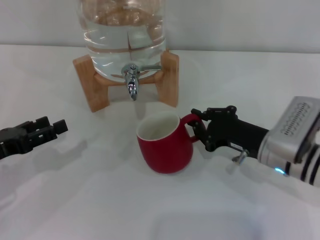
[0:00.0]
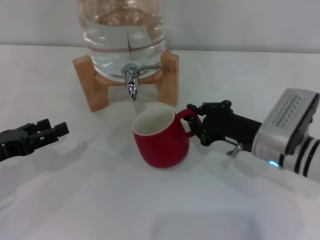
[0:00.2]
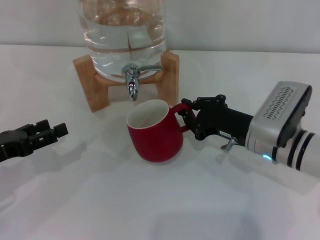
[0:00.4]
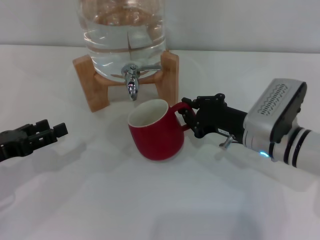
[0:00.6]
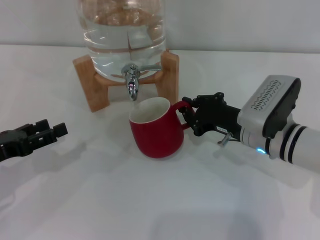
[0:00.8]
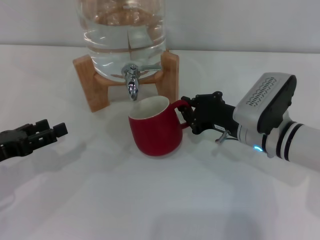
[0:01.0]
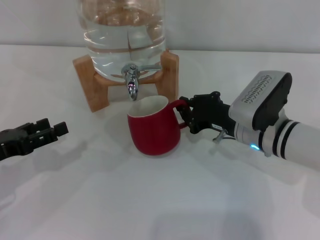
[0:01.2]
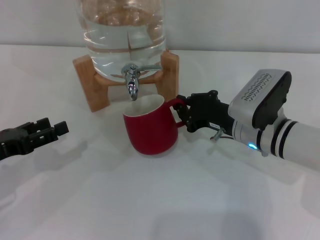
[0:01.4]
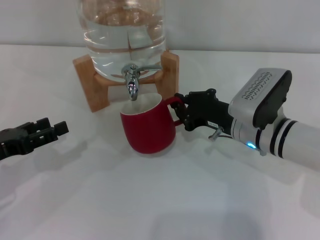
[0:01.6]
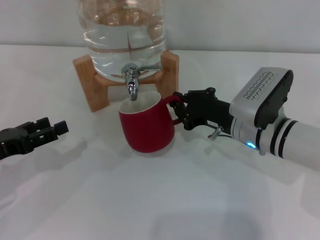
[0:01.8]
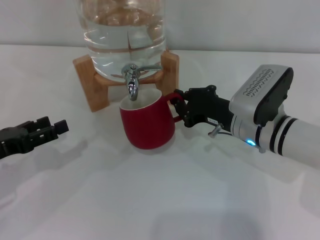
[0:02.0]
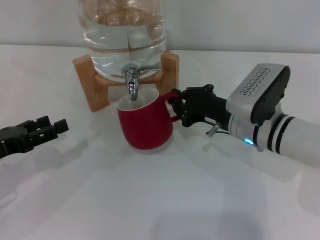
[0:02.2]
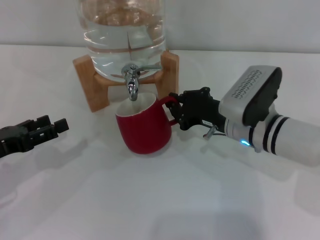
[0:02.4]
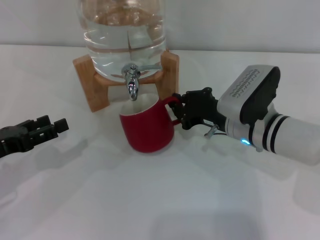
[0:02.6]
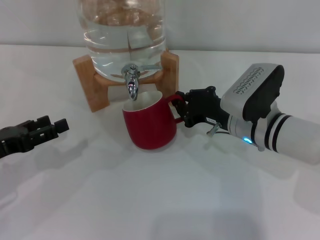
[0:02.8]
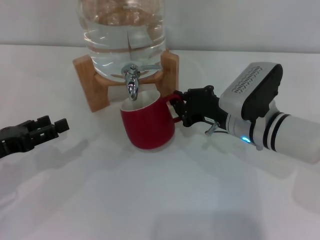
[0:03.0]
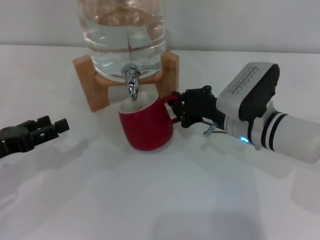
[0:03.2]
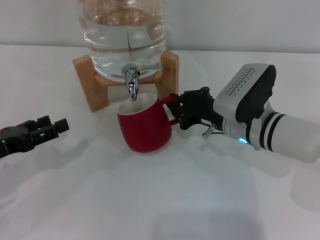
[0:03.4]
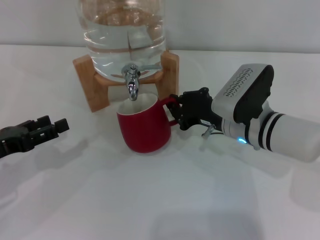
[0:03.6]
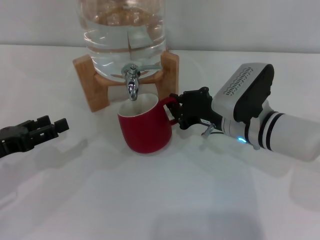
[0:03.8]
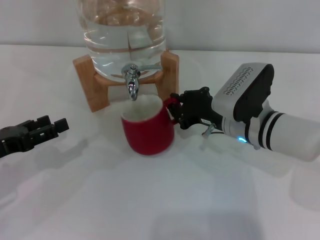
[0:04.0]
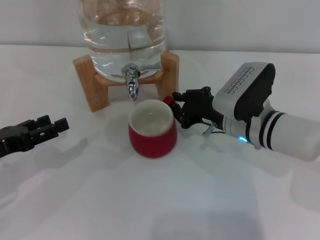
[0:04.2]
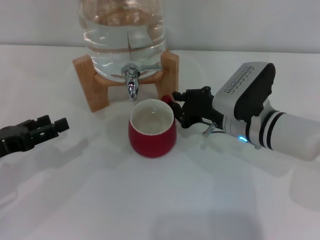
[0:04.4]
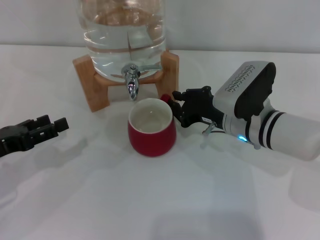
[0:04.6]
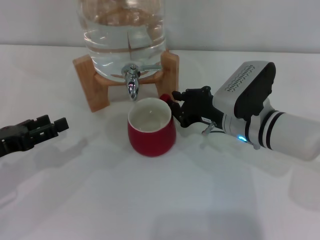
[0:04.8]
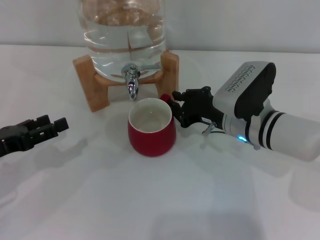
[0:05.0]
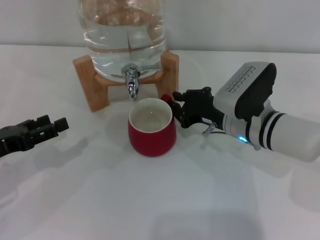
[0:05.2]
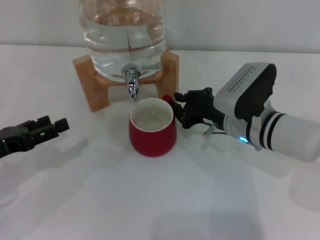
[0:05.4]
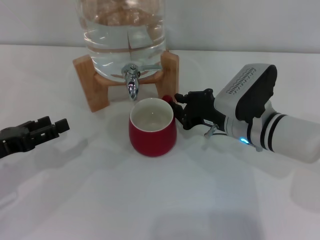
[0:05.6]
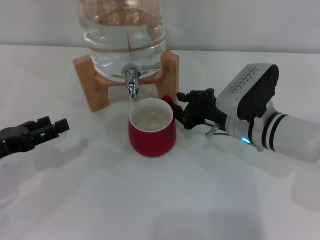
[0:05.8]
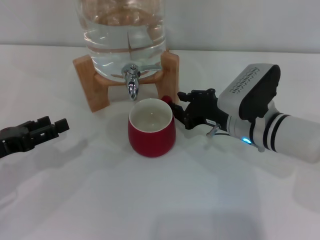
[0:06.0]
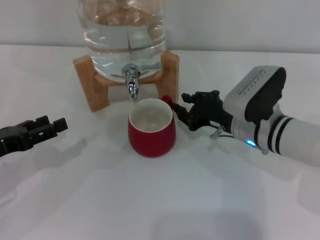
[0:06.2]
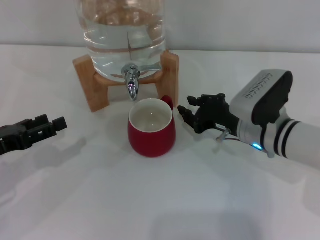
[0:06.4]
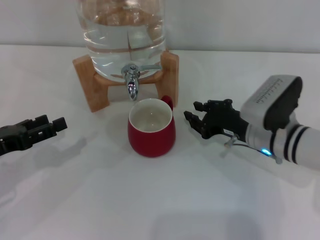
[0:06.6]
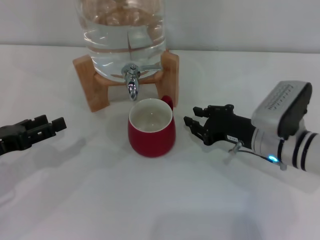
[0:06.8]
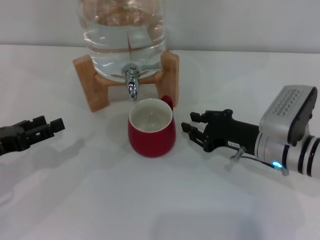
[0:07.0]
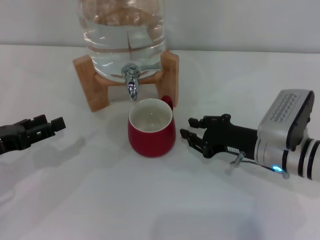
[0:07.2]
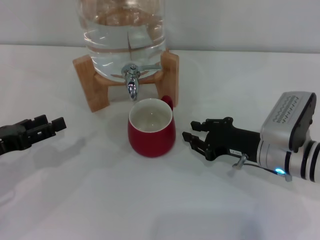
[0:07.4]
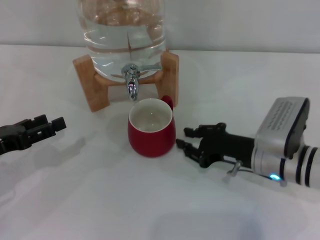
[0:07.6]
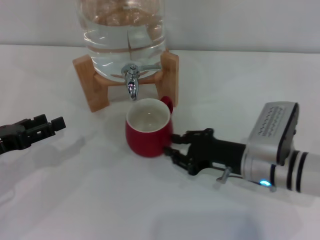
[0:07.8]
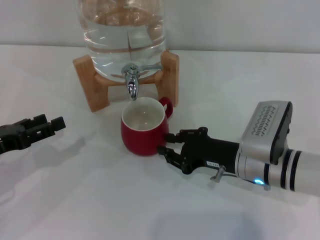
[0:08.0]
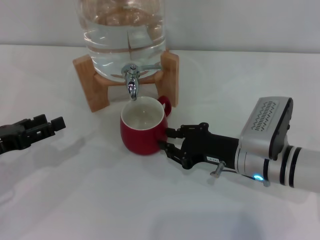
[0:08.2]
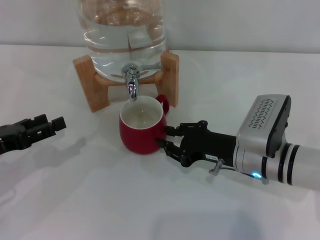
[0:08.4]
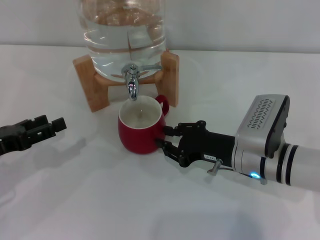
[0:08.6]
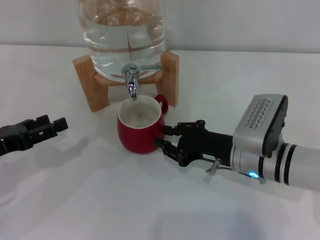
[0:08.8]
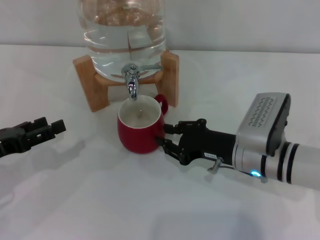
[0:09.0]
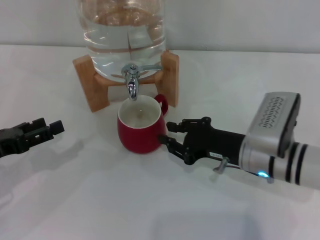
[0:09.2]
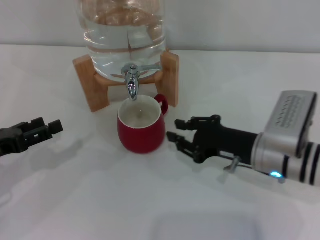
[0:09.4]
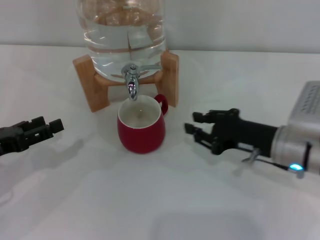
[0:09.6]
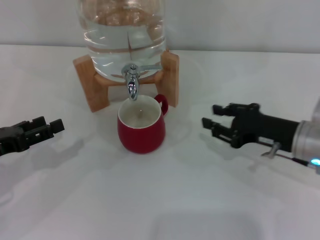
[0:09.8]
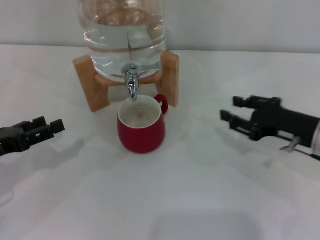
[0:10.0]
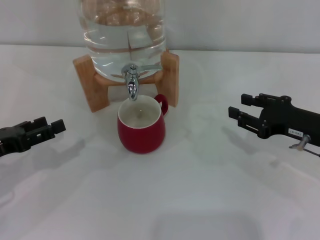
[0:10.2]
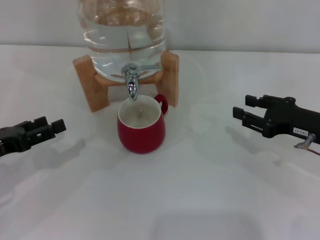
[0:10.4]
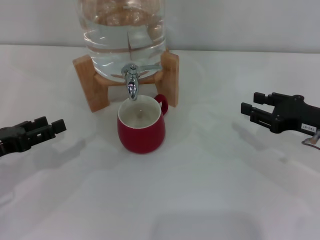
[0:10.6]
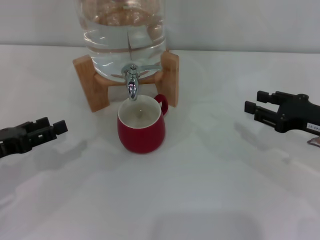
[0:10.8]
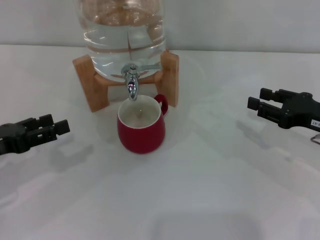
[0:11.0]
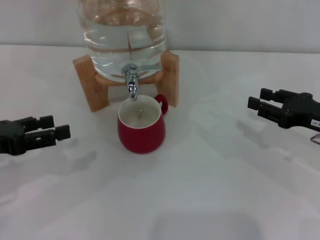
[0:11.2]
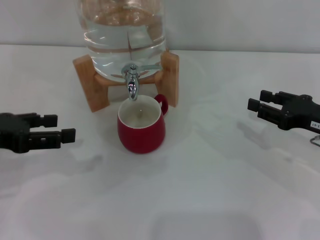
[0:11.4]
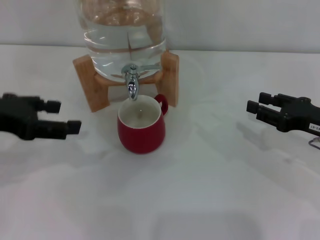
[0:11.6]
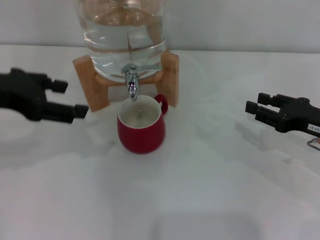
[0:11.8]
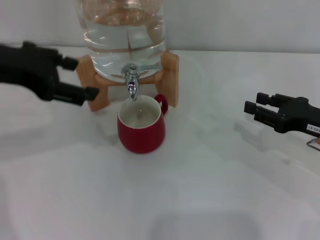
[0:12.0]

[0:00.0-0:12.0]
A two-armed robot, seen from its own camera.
Task of the whole recording: the right gripper pick up the red cup and place it horizontally under the faucet, the left gripper turn on the faucet to fill the cup, and then turn off the faucet.
Step, 0:00.0 to 0:09.6: Move the cup beneath the water dispenser nozzle with the right gripper.
0:00.0 to 0:01.6: The right gripper changes place by roughly 5 cm.
0:01.6 to 0:03.0: Neither gripper changes place.
0:03.0 to 0:06.0: Both grippers stay about where they are.
0:06.0 to 0:07.6: The right gripper moves approximately 5 cm.
0:07.6 to 0:09.0: The grippers stay close to where they were, moving slightly.
0:09.0 to 0:10.4: The right gripper shifts roughly 10 cm to the right.
0:10.4 to 0:12.0: The left gripper goes approximately 20 cm upward and to the right.

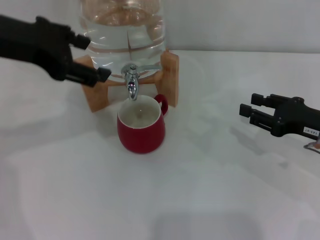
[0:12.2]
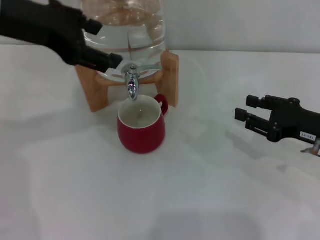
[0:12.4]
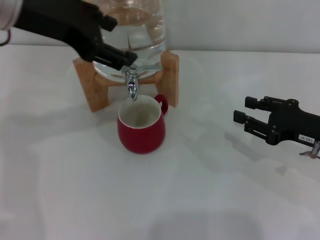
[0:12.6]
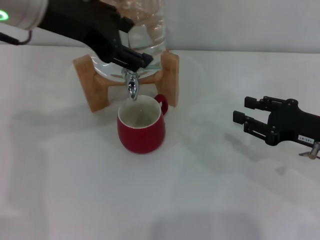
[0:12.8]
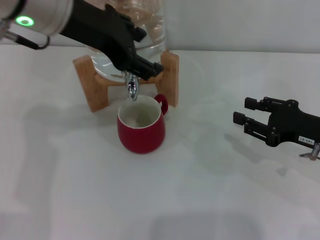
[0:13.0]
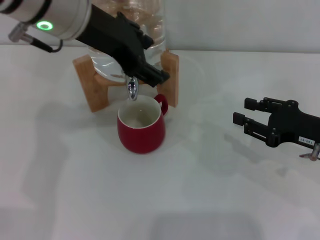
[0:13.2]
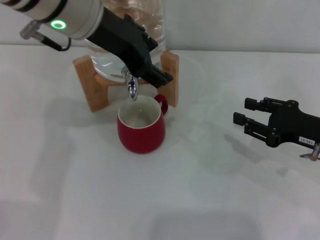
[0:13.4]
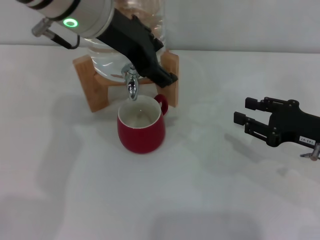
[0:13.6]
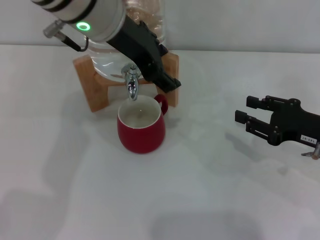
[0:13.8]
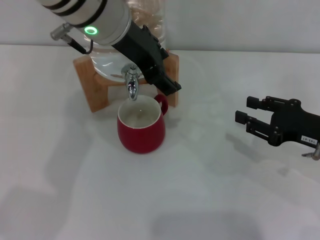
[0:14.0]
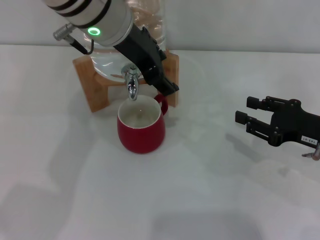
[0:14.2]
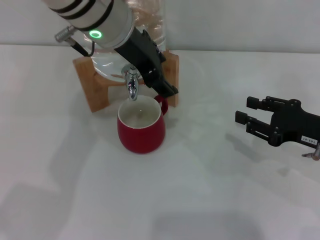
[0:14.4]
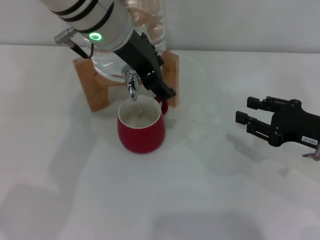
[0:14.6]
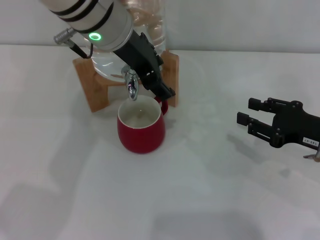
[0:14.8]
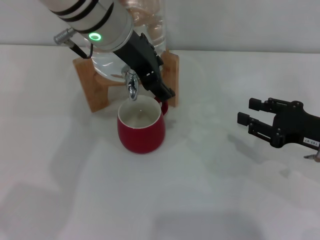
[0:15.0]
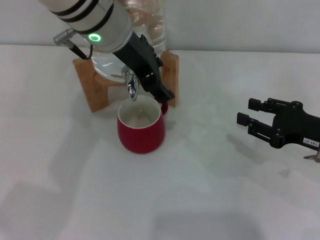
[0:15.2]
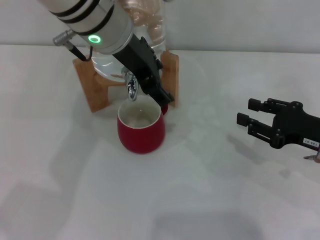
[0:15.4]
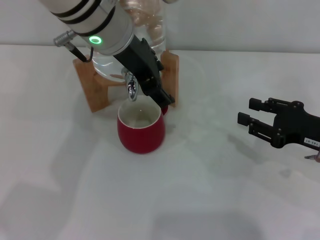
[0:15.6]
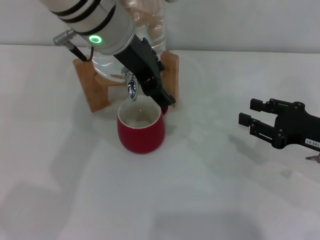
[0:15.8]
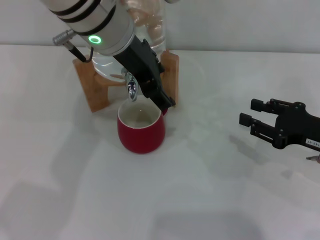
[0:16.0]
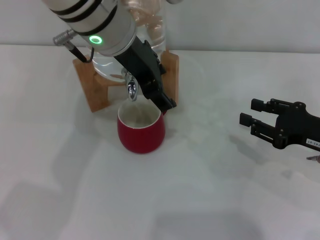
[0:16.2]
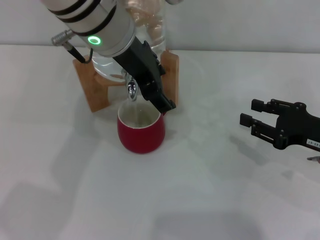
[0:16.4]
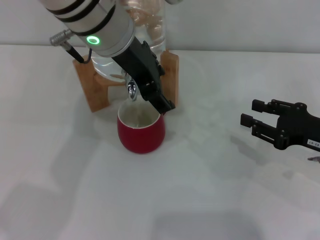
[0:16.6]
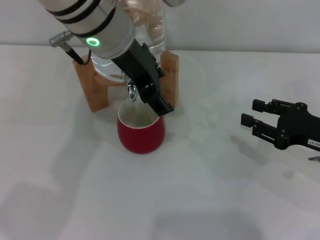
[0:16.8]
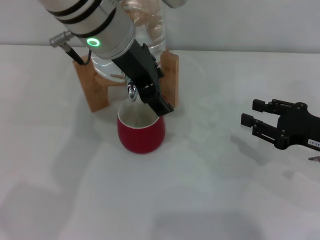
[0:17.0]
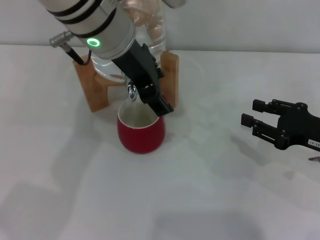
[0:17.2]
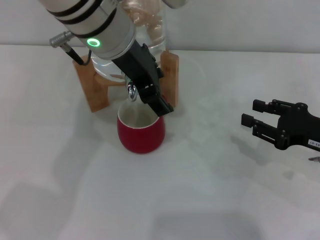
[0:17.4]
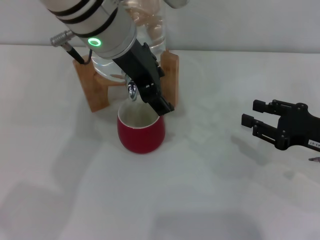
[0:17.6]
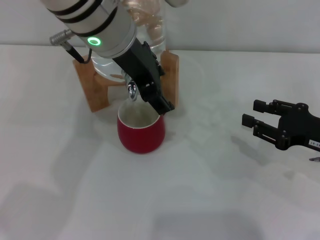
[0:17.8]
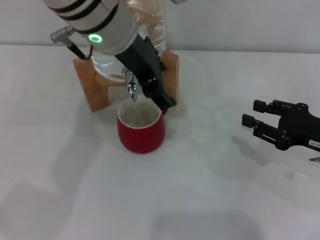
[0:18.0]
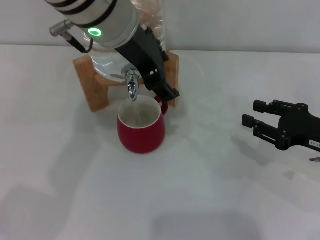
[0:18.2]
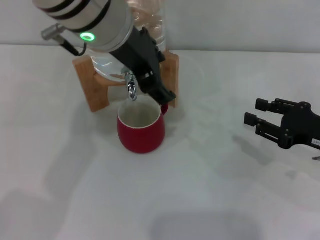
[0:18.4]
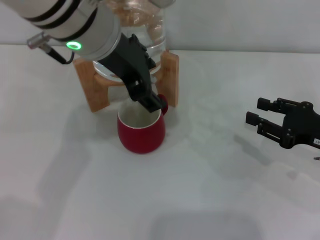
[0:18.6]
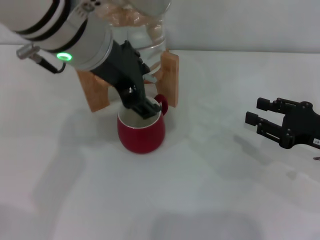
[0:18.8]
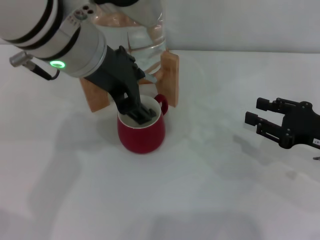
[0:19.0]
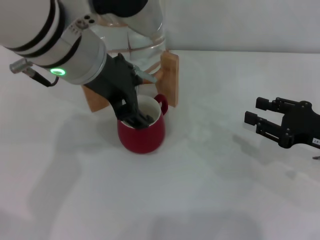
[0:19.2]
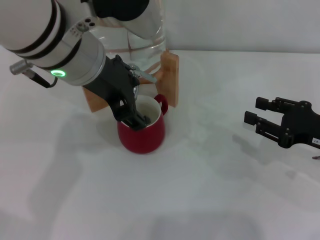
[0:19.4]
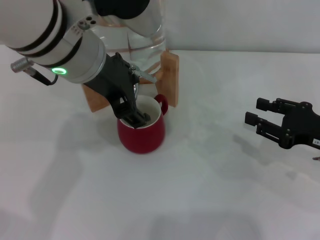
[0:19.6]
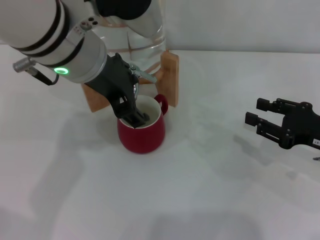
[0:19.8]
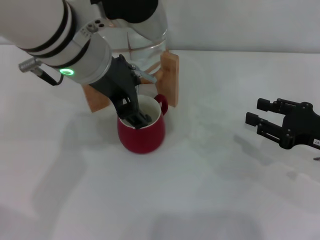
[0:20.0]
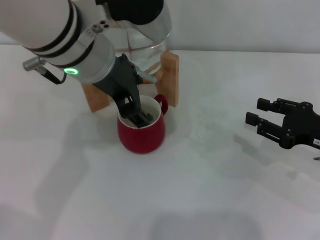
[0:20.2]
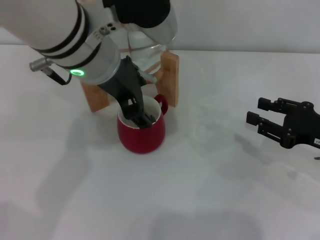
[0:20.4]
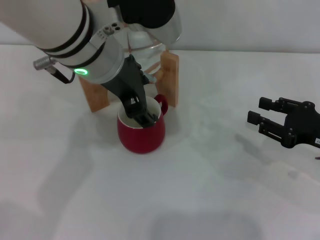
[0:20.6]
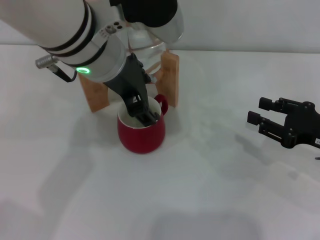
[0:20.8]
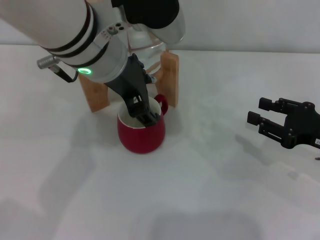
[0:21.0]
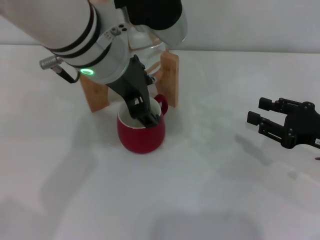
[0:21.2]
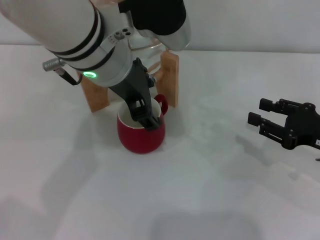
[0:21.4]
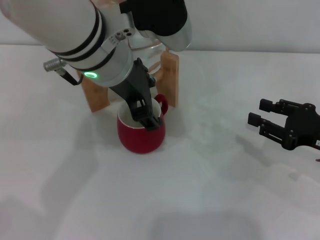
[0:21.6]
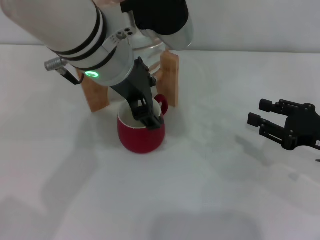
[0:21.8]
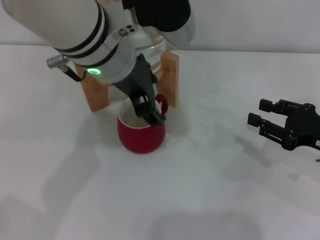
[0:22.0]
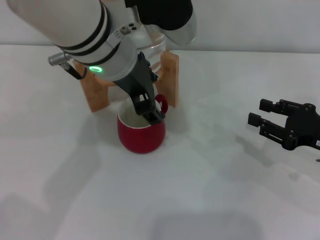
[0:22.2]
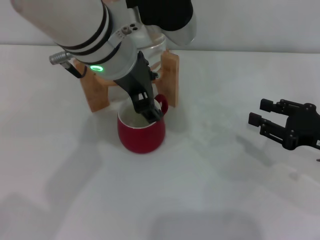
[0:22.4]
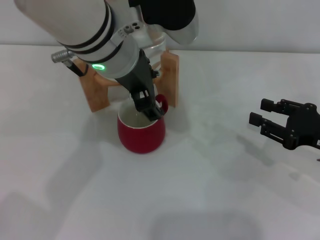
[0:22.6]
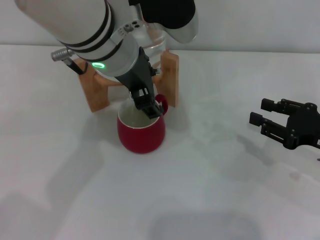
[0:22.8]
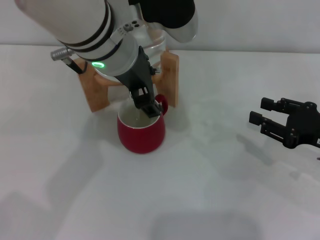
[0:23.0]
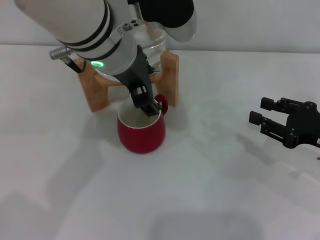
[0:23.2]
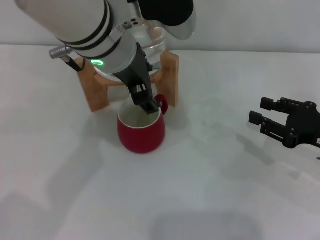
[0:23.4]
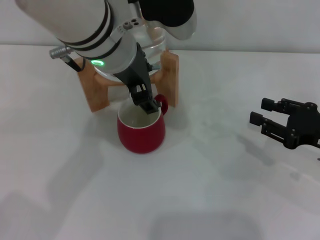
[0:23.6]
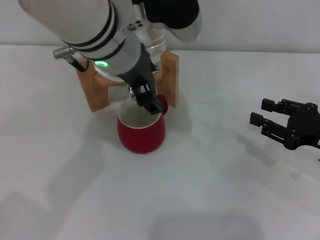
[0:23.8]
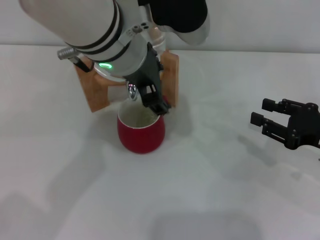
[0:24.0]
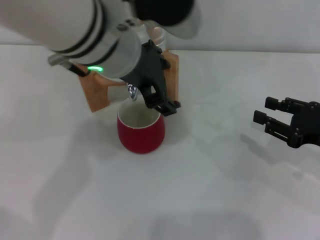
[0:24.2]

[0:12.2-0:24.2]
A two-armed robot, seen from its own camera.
Task of the whole recording: the right gripper pick up the red cup and place it horizontally under the faucet, the left gripper turn on the faucet to fill the cup, and then turn off the faucet.
Step, 0:12.2 to 0:18.8: Open the dispenser valve and fill the cup with water with the left gripper.
0:12.2 to 0:13.8: The left gripper heads to the right and forward, covering about 15 cm.
0:13.8 to 0:21.2: The grippers move only a little.
0:21.2 to 0:22.6: Both grippers stay about where they are.
0:22.6 to 0:24.2: There are only small adjustments of the grippers.
